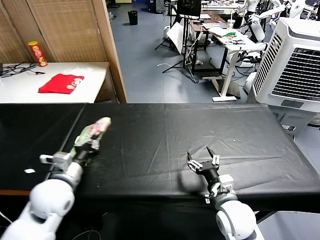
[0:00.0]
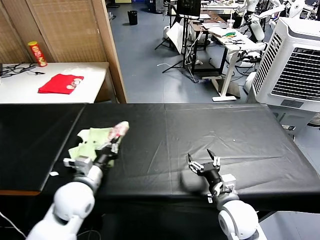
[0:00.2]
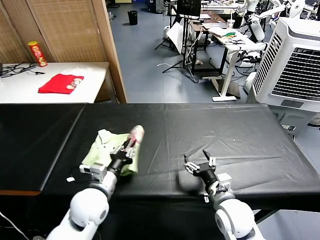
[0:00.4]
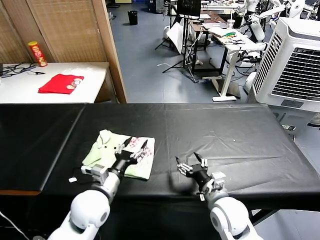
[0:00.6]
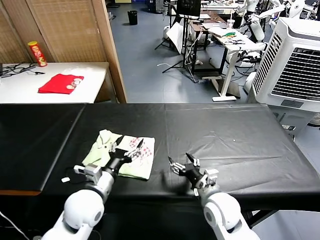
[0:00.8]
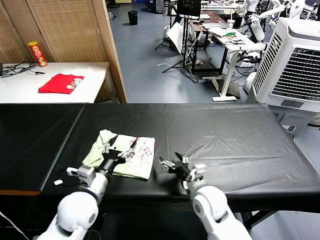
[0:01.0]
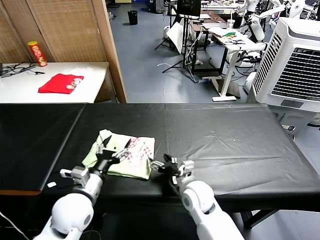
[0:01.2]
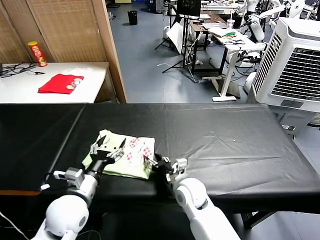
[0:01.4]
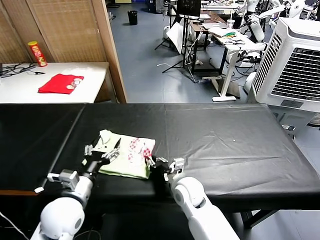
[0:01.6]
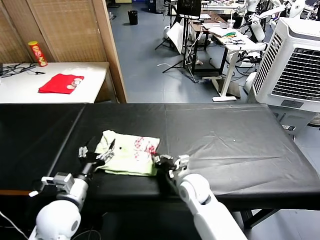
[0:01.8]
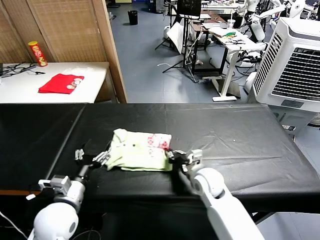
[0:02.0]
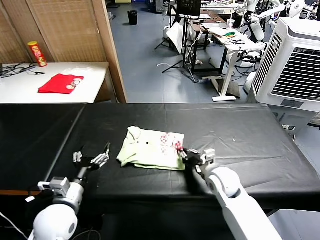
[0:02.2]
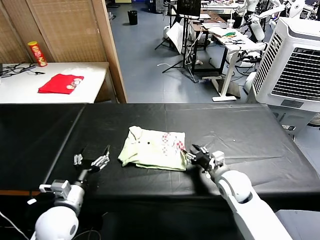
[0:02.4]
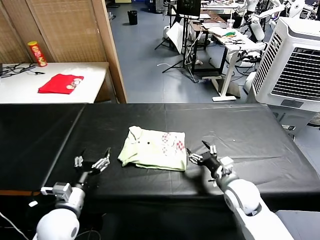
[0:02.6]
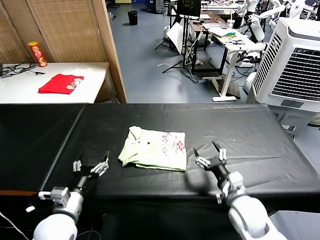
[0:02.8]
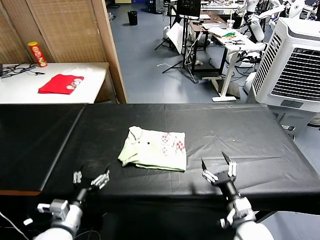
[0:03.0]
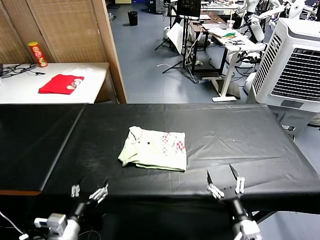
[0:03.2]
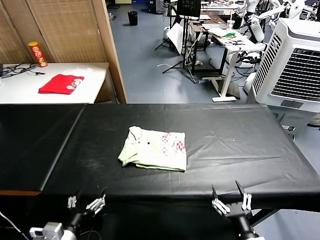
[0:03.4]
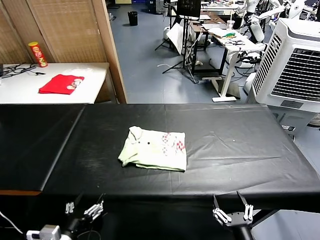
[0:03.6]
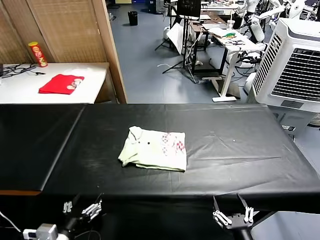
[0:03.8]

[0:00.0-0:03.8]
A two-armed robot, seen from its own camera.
Task of the whole recording: fold and organize the clothes.
Step, 0:00.6 to 0:02.4: Drag the clothes to the center of the table.
0:00.0 to 0:01.2: The left gripper heads to the right, covering some 5 cm, and opens, while the right gripper goes about 10 cm to the left and forward.
0:01.2 to 0:02.6: The left gripper moves some 5 cm, while the right gripper is displaced to the right by some 10 cm, and closes and opens again.
0:02.6 to 0:03.8: The right gripper heads backward, covering about 25 cm, while the left gripper is displaced backward by roughly 10 cm.
